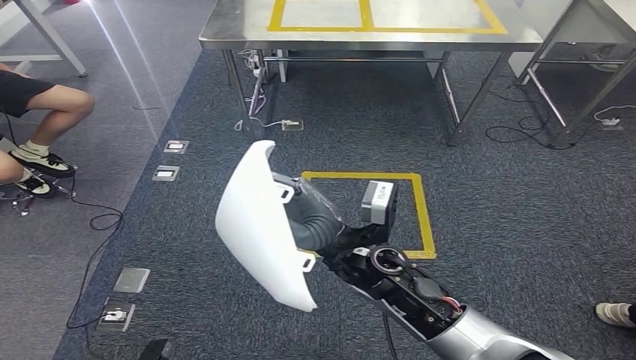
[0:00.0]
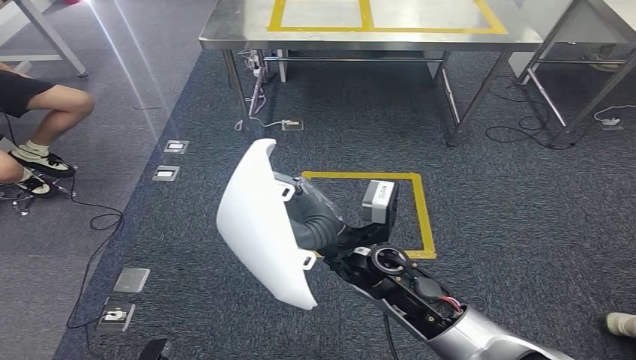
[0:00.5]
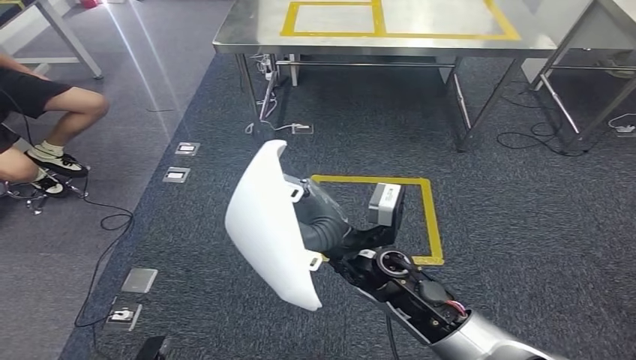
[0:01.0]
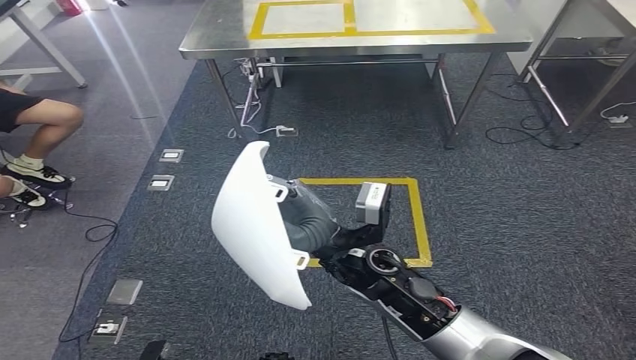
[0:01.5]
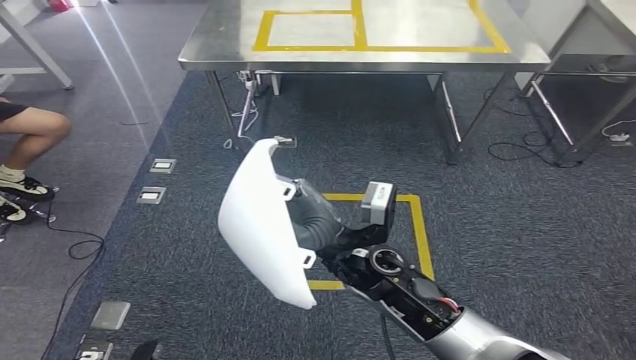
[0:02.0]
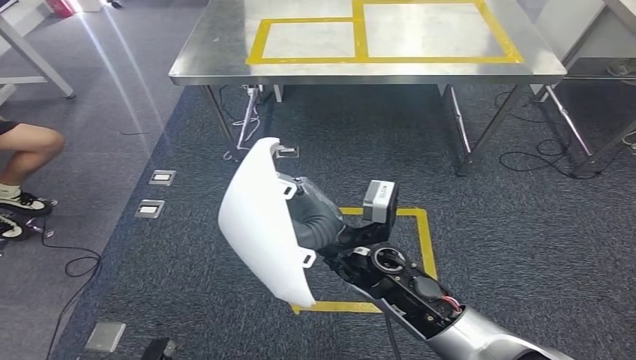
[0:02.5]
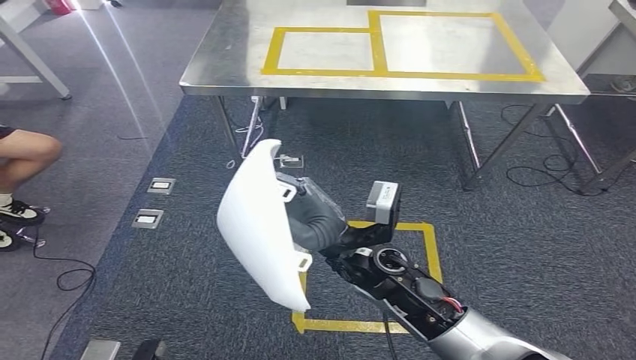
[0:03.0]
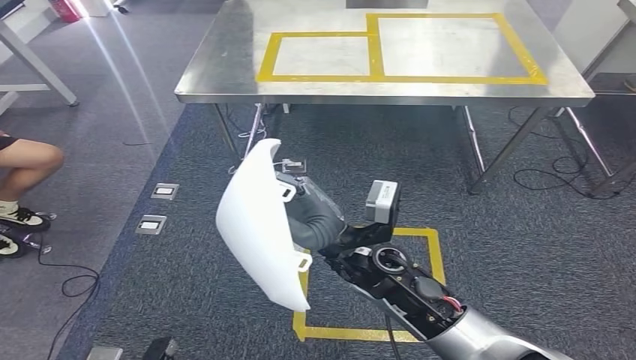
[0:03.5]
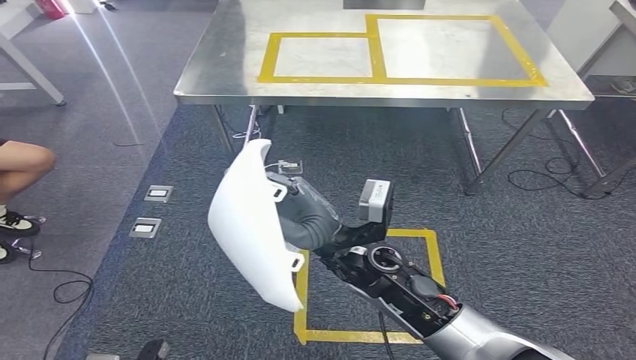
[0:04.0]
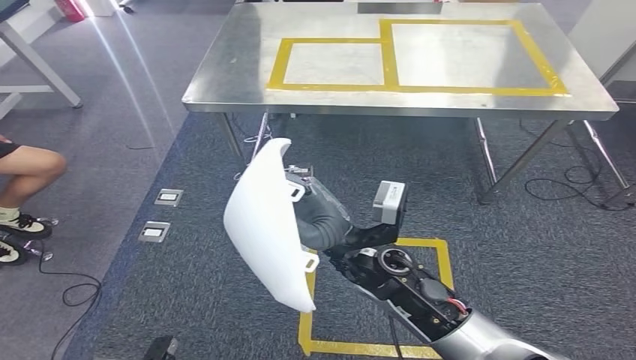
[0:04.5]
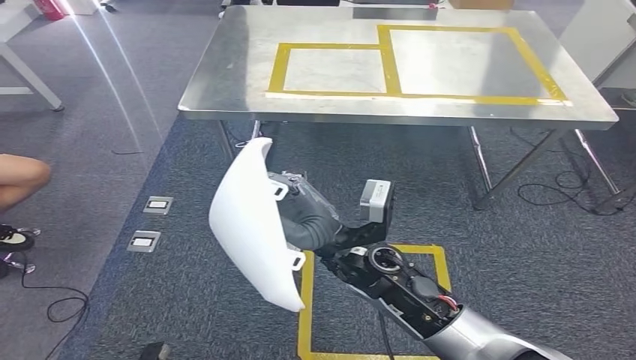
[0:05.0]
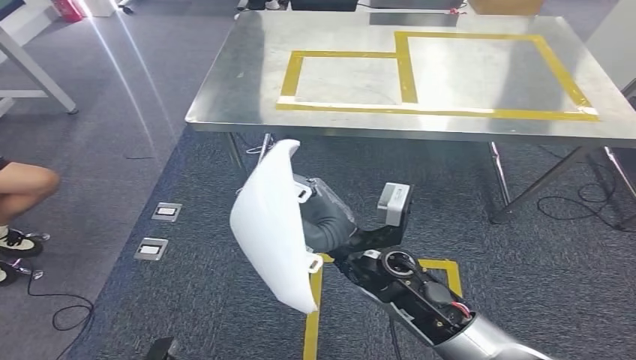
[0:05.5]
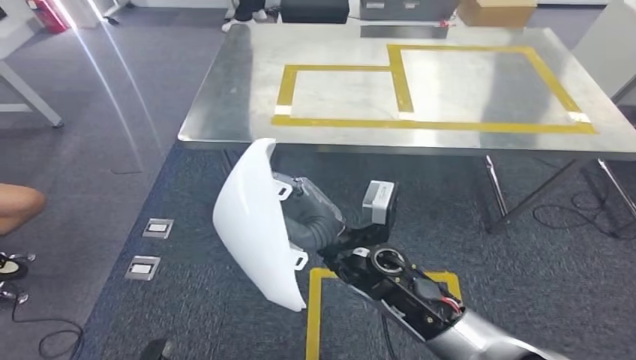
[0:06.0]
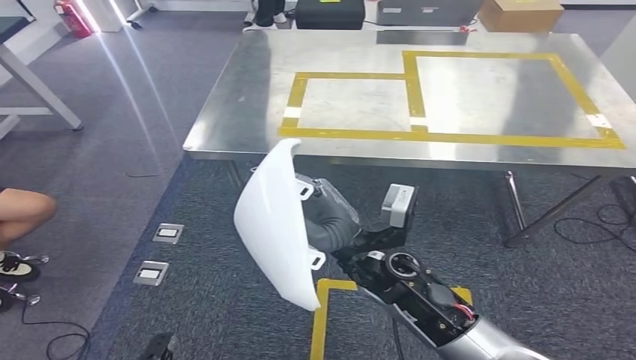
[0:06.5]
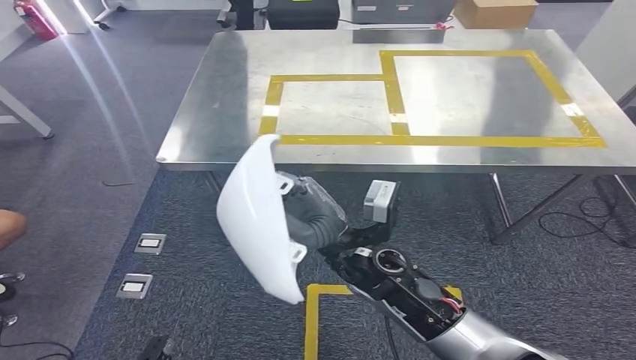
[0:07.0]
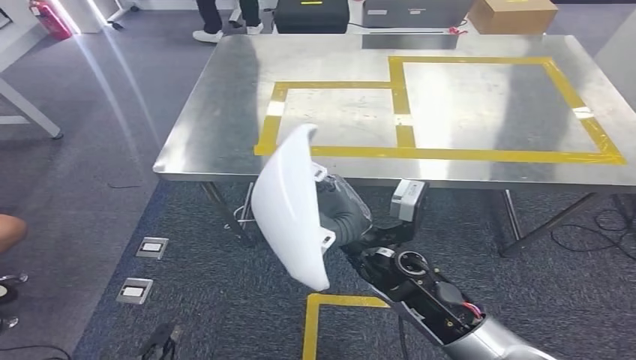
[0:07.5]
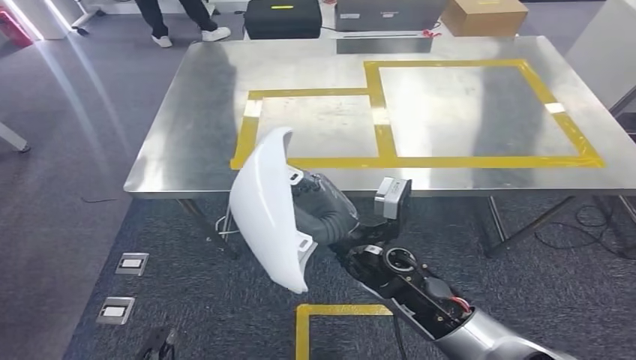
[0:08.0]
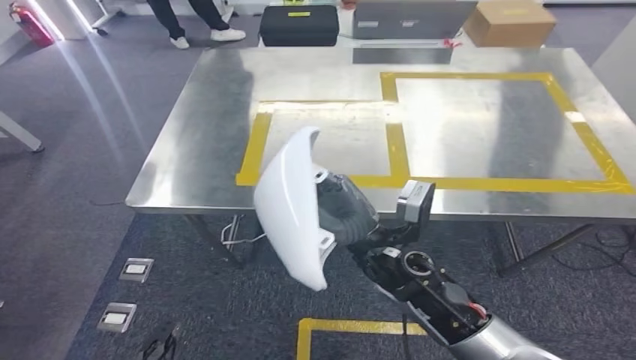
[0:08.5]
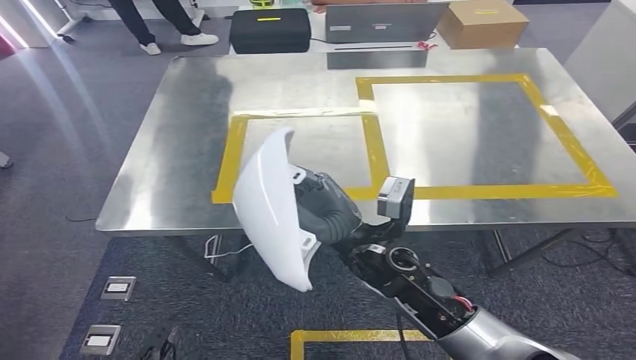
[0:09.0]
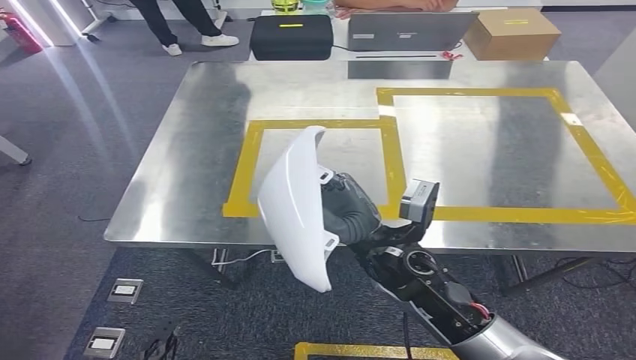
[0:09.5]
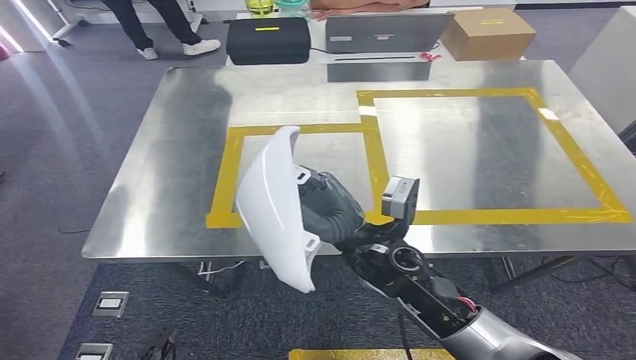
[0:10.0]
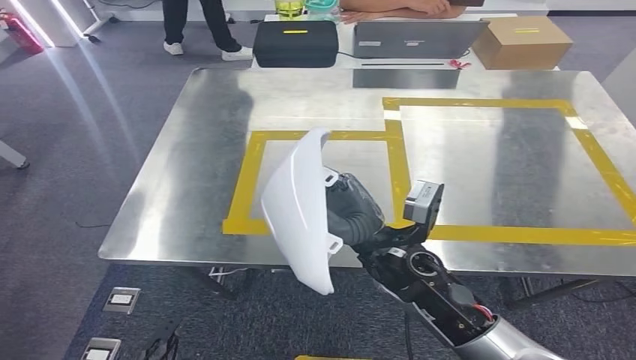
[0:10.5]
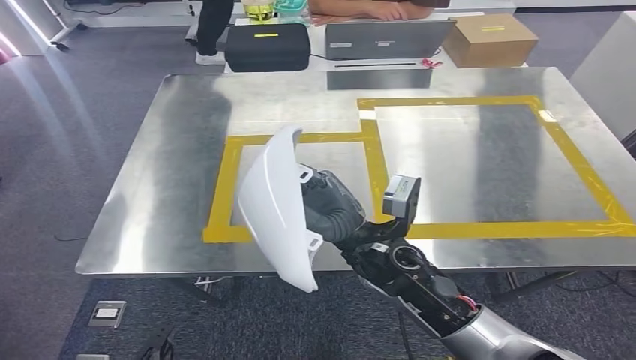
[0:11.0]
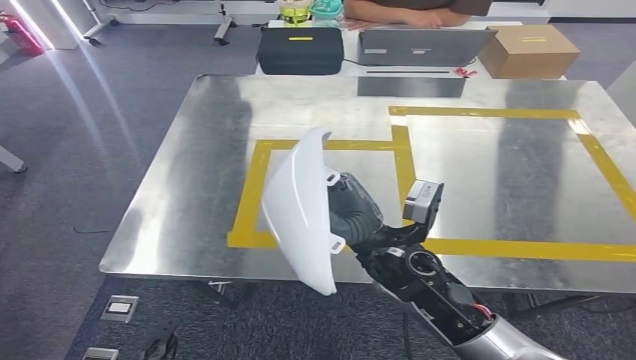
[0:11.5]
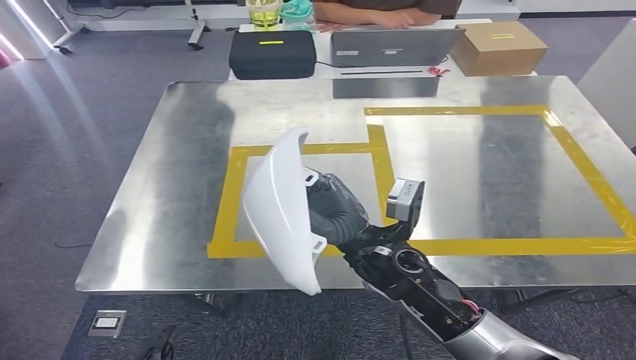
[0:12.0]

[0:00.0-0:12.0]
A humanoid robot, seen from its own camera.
Step, 0:00.0 to 0:06.0: Move the small component to the workbench.

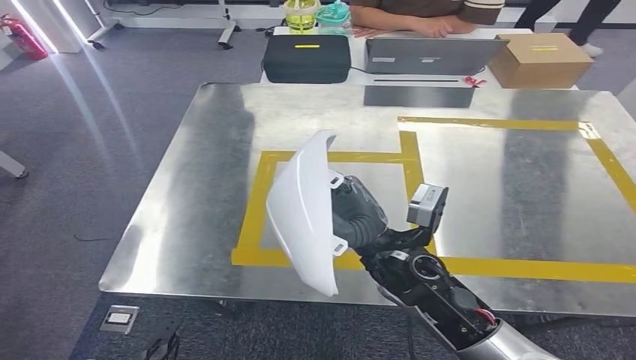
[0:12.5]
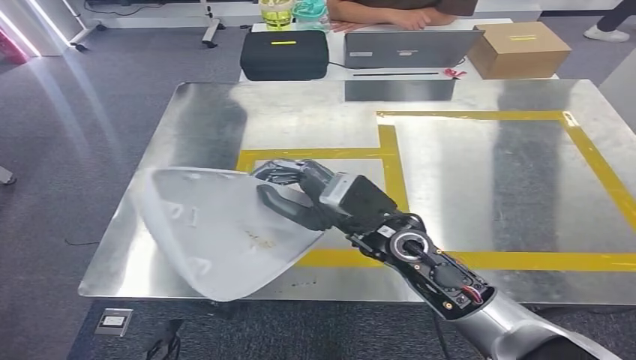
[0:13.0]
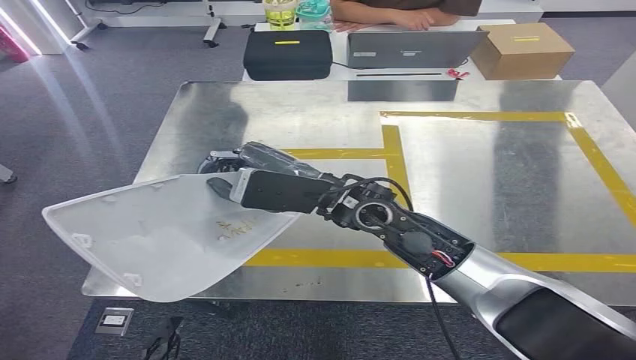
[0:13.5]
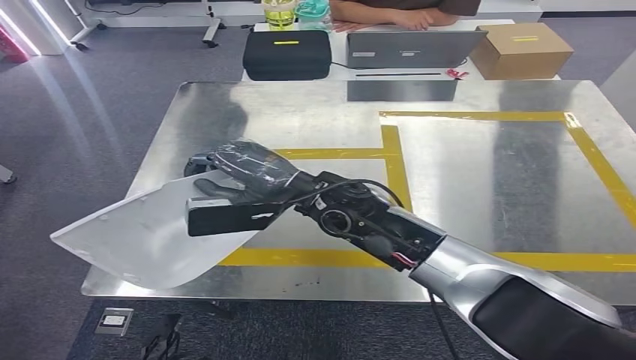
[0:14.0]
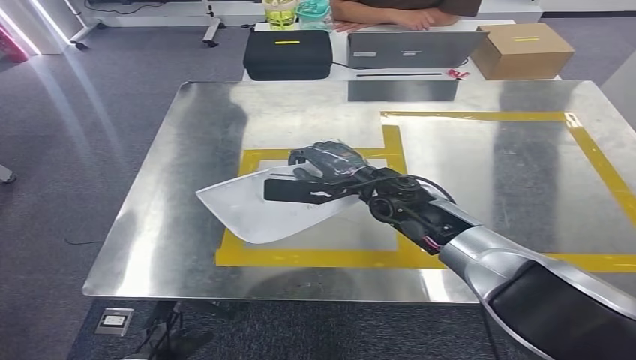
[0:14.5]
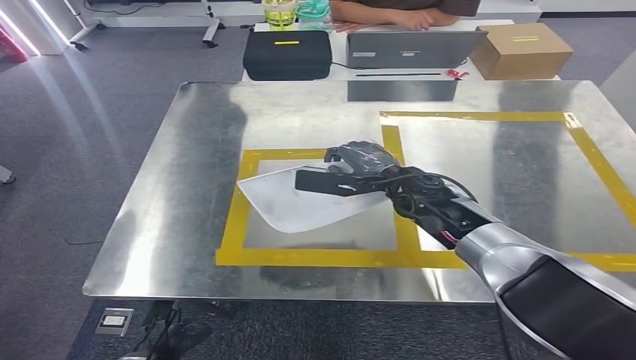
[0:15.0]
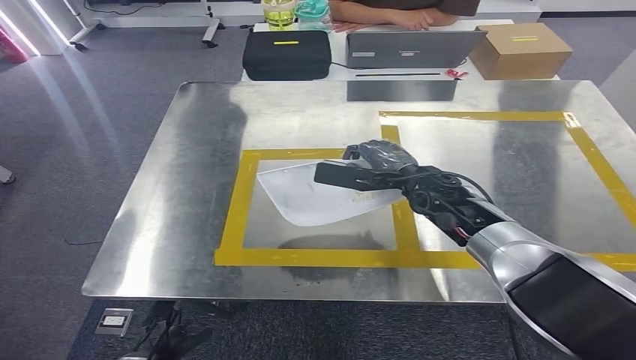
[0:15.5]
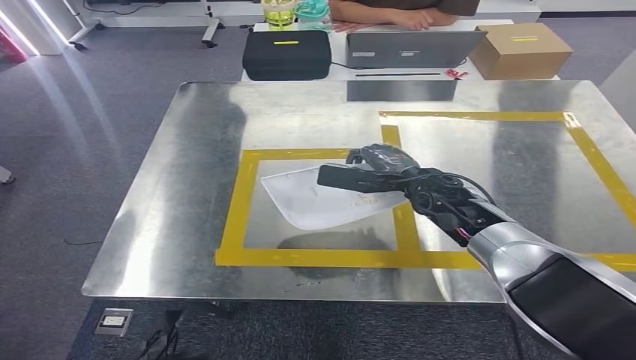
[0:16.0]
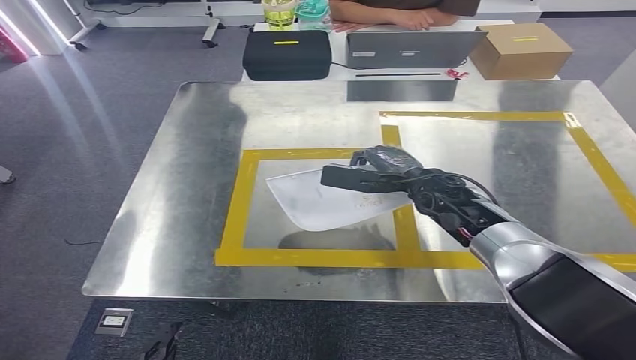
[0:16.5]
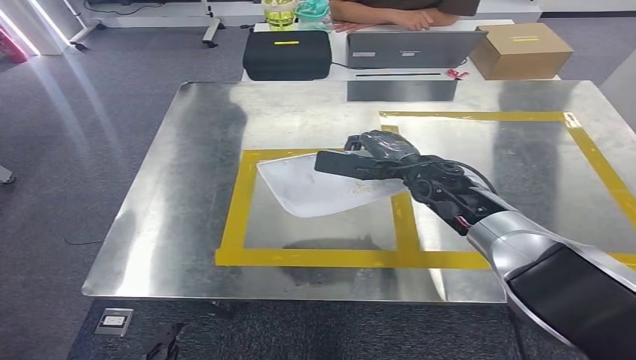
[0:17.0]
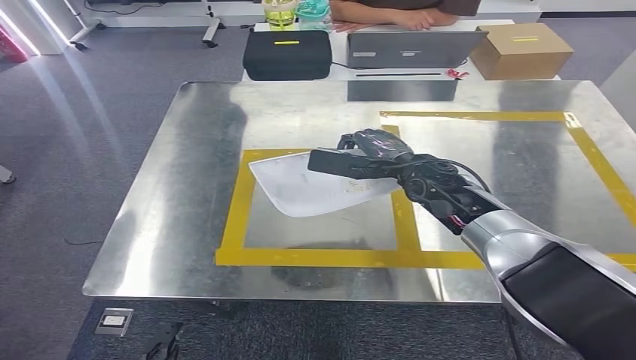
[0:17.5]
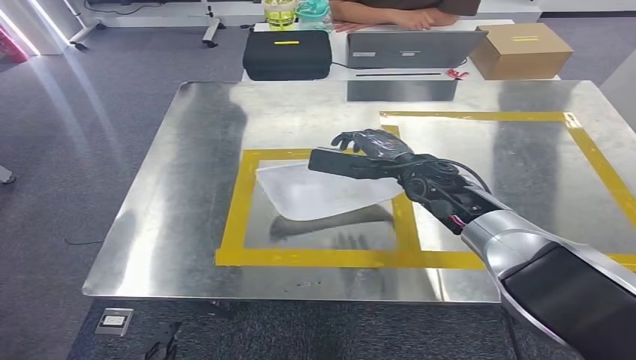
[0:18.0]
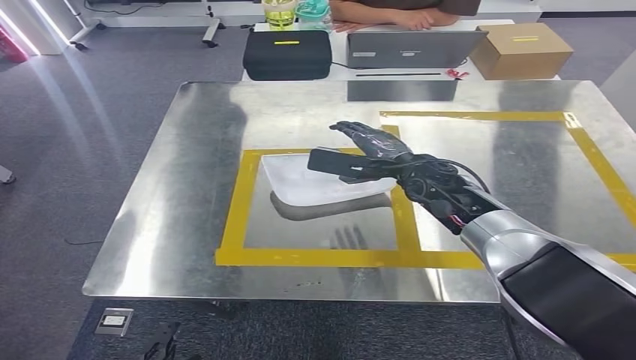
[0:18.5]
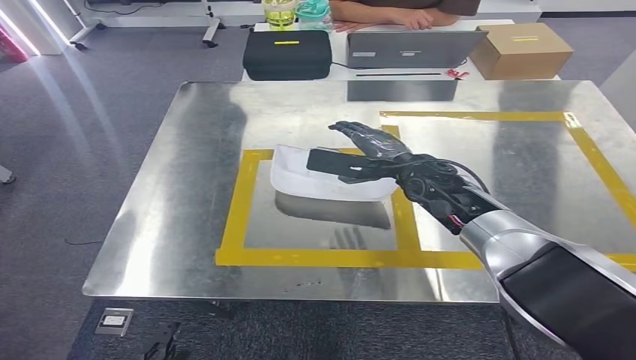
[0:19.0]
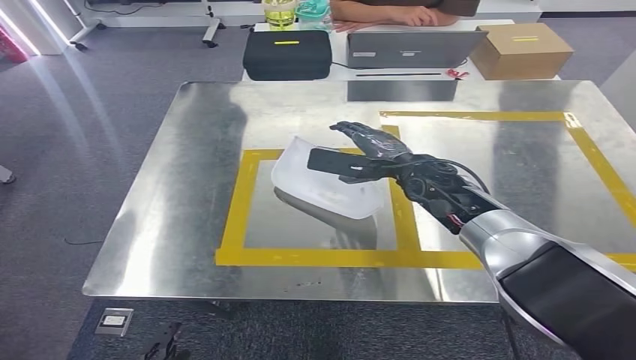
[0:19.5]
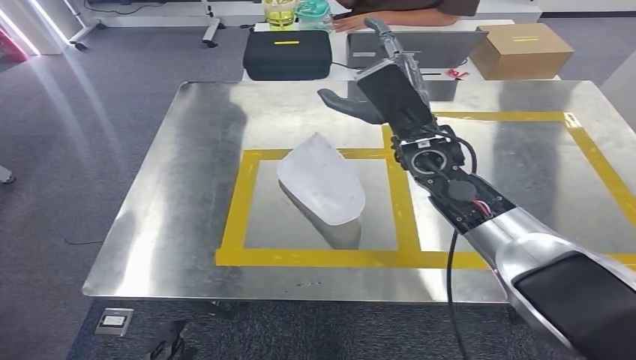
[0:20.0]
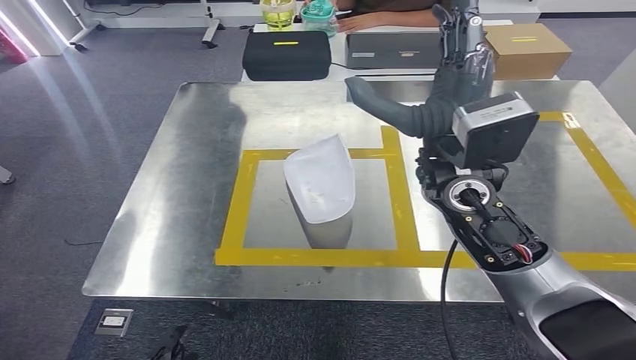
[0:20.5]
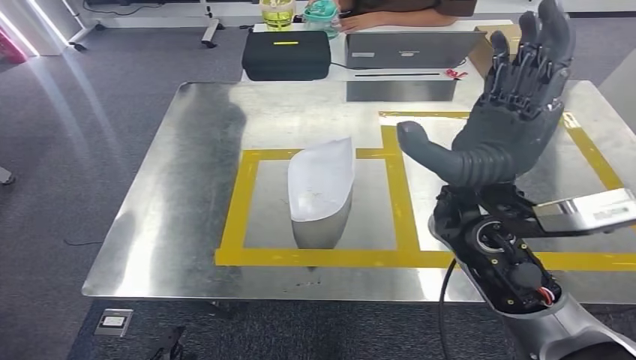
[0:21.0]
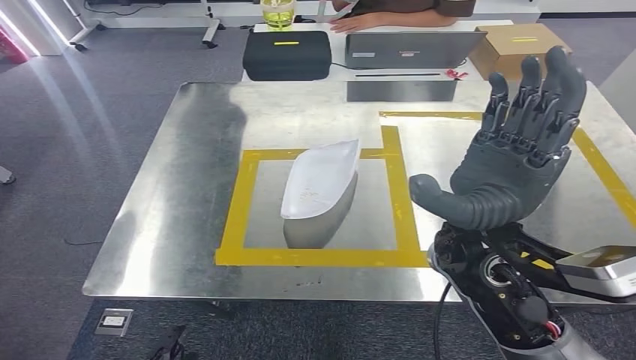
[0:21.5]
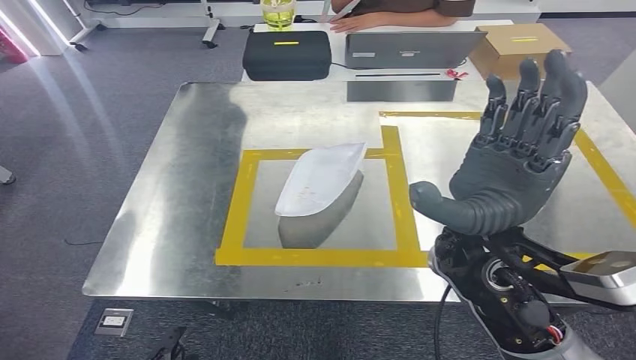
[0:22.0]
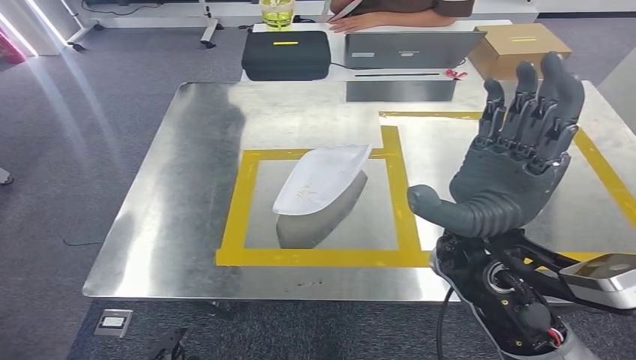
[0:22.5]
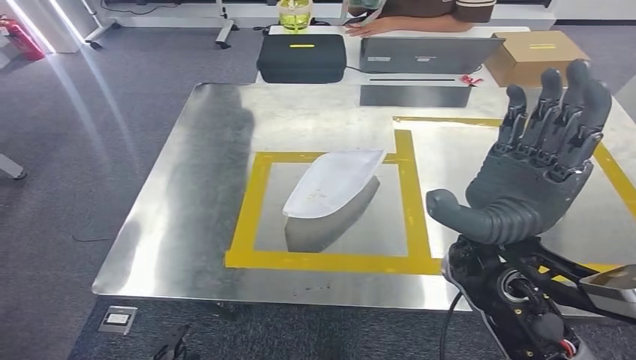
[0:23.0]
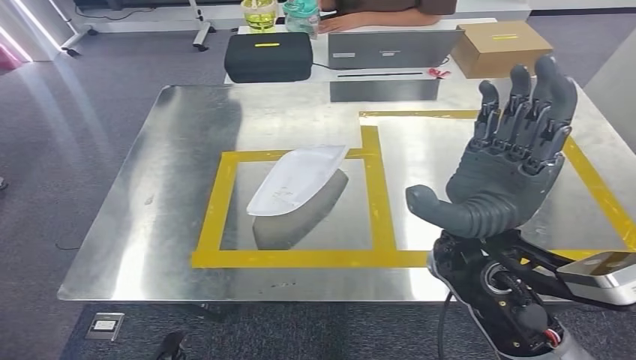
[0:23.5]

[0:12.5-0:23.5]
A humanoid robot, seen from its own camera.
Step, 0:12.5 to 0:19.0: Insert the small component into the corresponding slot on the workbench.
0:14.5 to 0:16.0: The right hand travels to the right by roughly 10 cm.
0:16.0 to 0:18.0: The hands stay close to where they were, moving slightly.
0:18.0 to 0:20.0: The right hand is displaced upward by approximately 10 cm.
